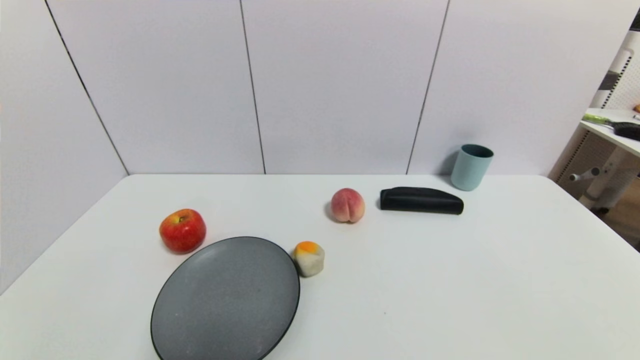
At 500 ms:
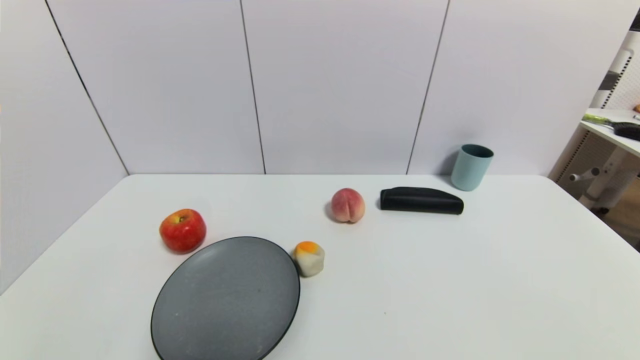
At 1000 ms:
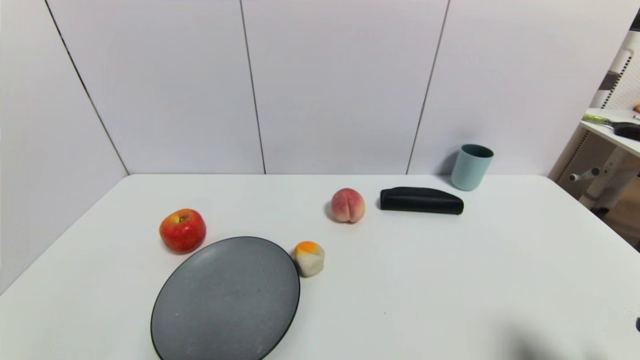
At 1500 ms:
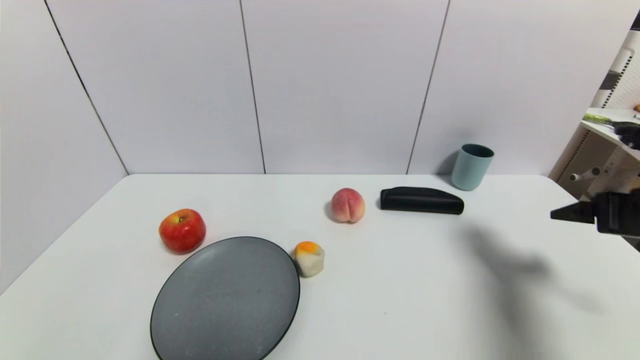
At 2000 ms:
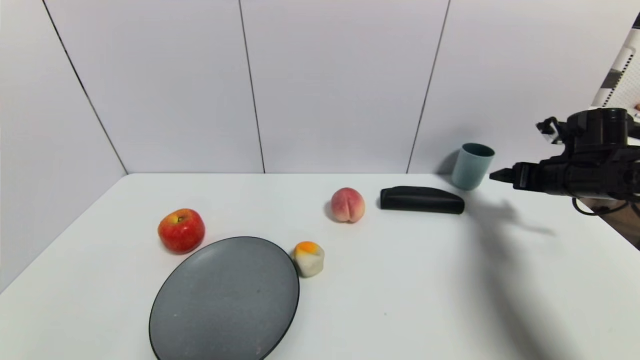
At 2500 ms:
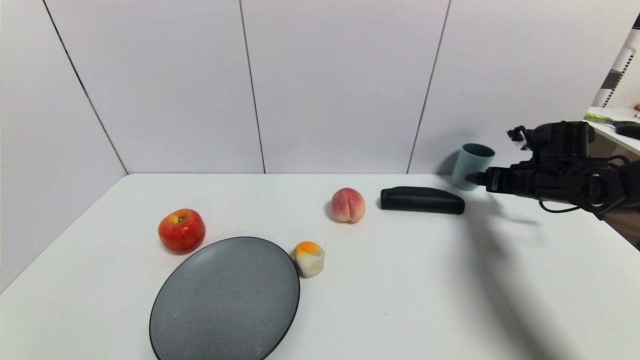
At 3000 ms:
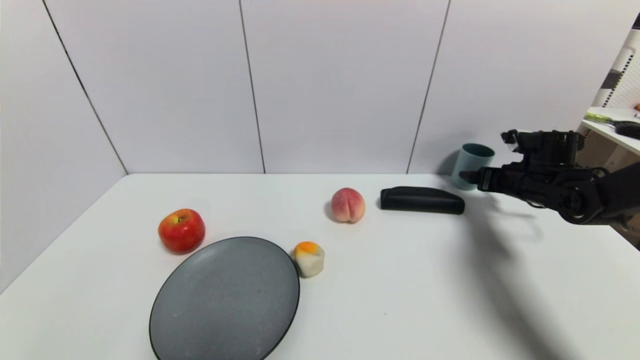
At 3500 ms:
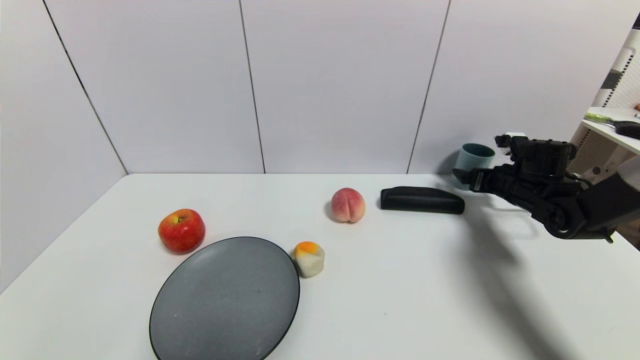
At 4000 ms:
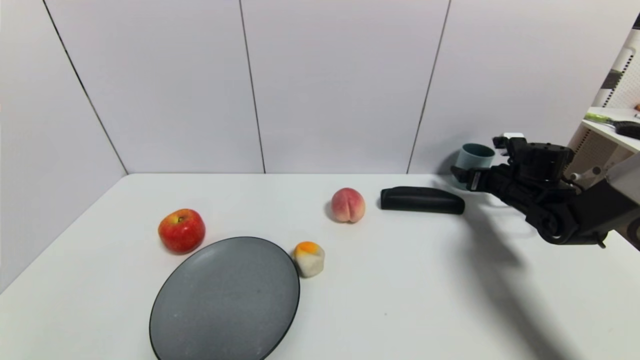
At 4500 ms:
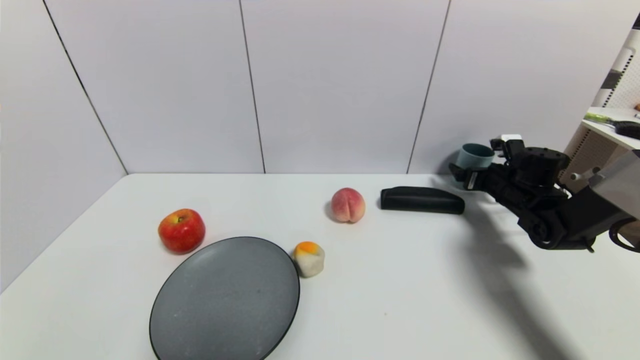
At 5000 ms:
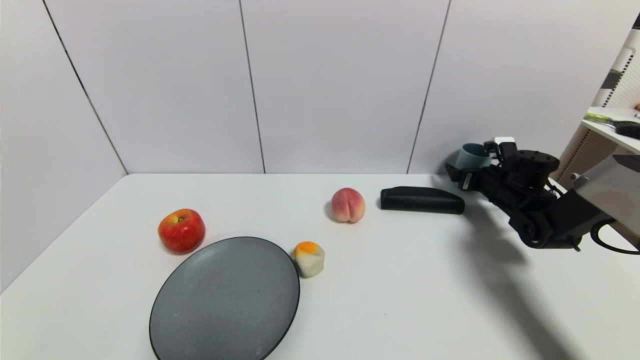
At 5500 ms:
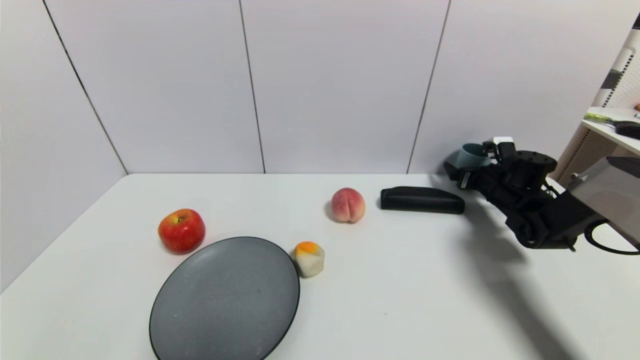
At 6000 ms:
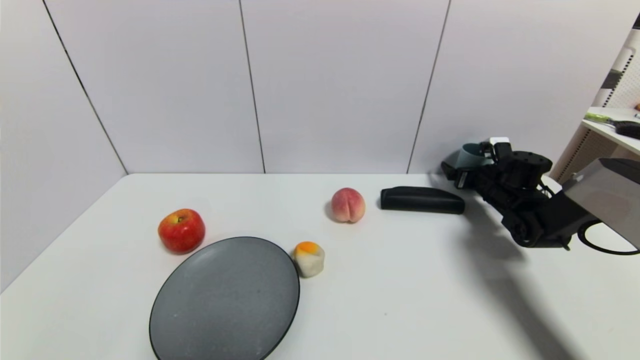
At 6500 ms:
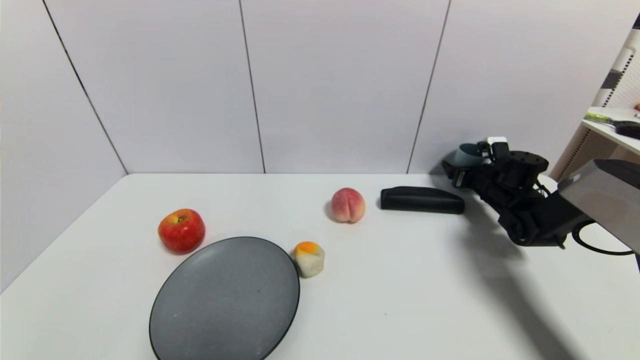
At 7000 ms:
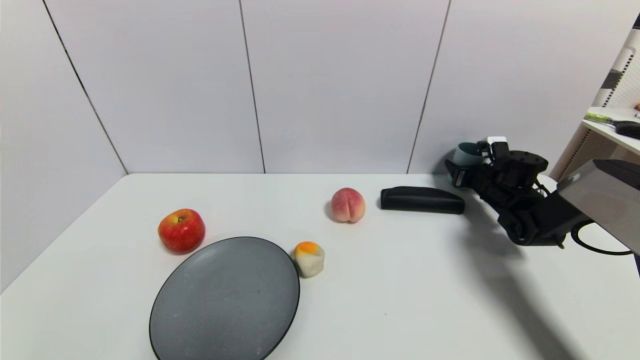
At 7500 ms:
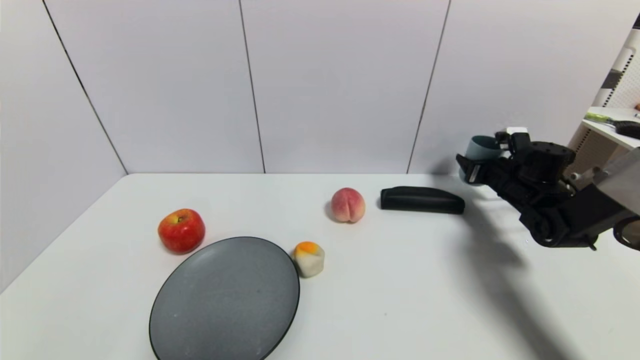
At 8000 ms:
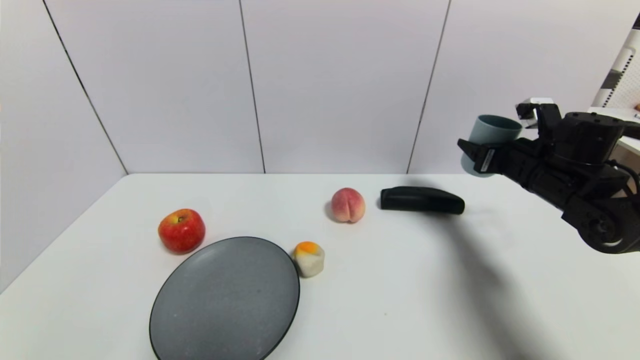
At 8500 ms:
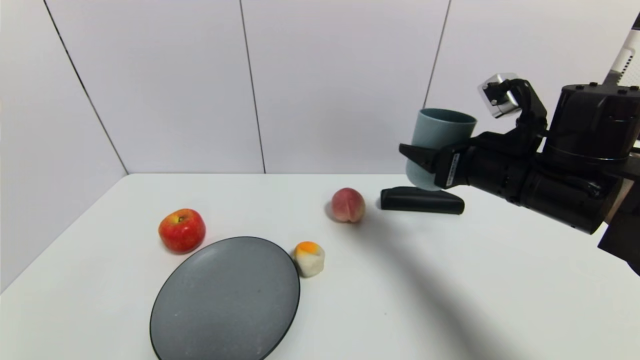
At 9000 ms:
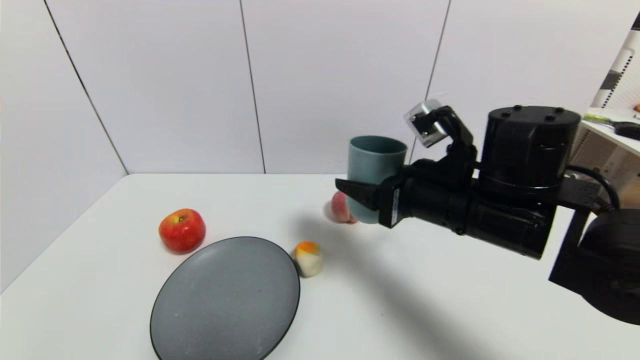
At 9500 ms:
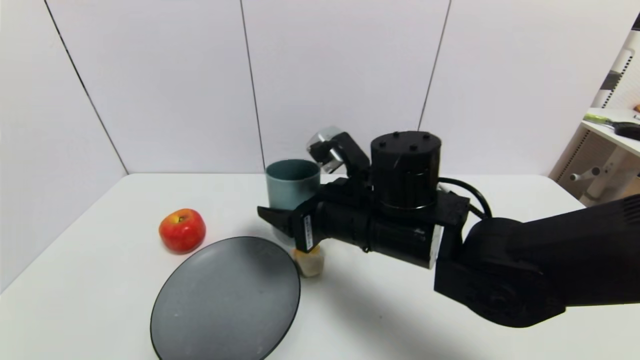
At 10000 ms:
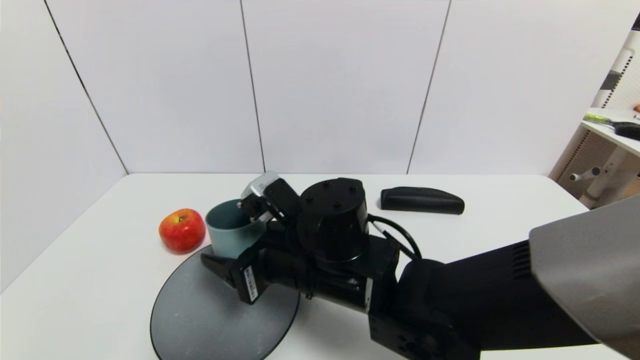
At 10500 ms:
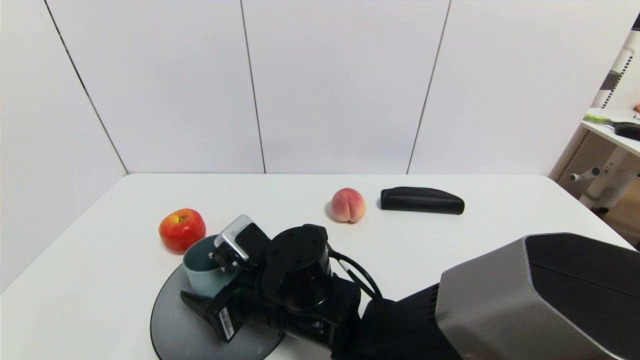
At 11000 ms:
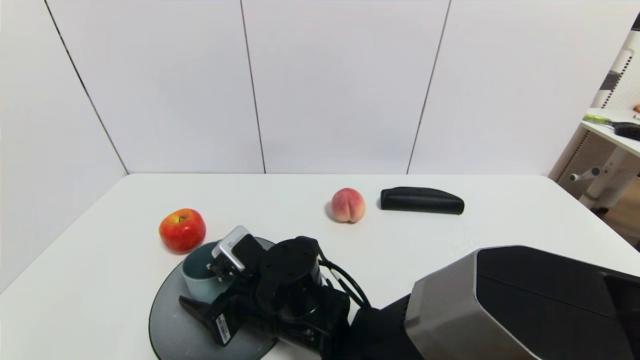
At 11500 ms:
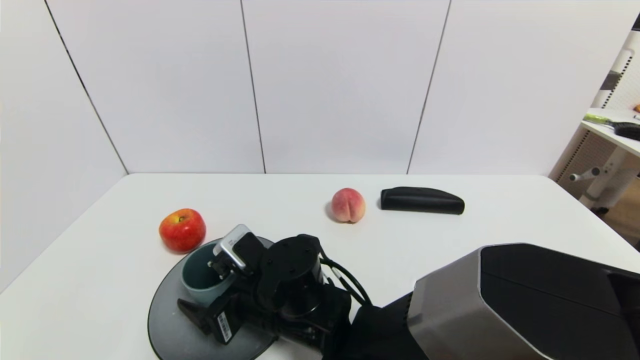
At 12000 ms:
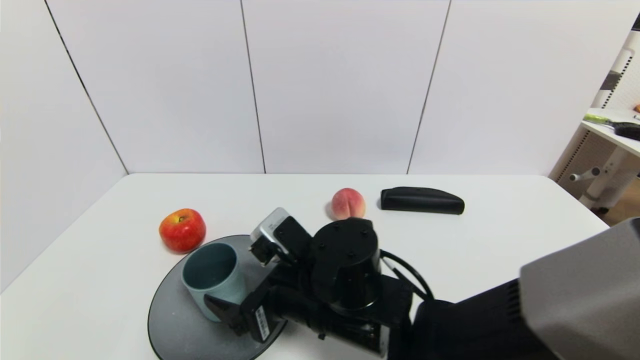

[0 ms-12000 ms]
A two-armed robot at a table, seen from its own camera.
Task of the whole recording: use a gripper to pick the target object and place on the gray plate.
Step, 0 ms to 7000 ms: Grasp the blue cup with the right gripper.
Step, 7500 ms to 12000 ms: Place the blue cup on the gray plate with the right gripper.
0 ms to 2000 ms: The right gripper is displaced forward by some 40 cm.
2000 ms to 4000 ms: The right gripper heads downward and forward, covering roughly 10 cm.
4000 ms to 6000 ms: There are only small adjustments of the grippers.
6000 ms to 8000 ms: The right gripper heads backward and upward, covering approximately 15 cm, and closes.
8000 ms to 10000 ms: The right gripper goes about 30 cm to the left.
10000 ms to 12000 ms: The right gripper opens up.

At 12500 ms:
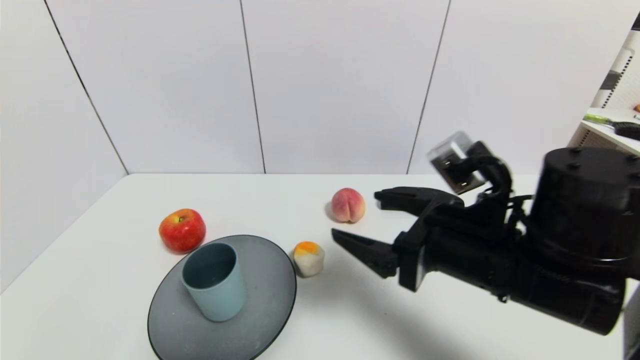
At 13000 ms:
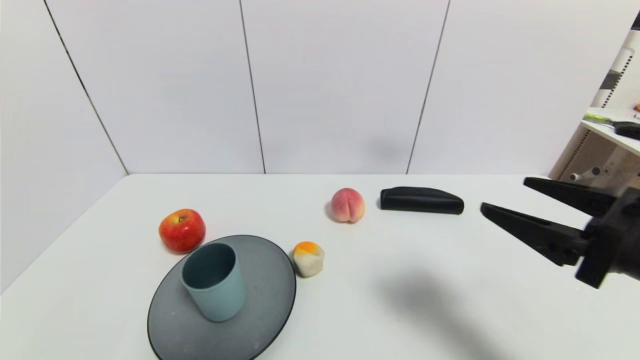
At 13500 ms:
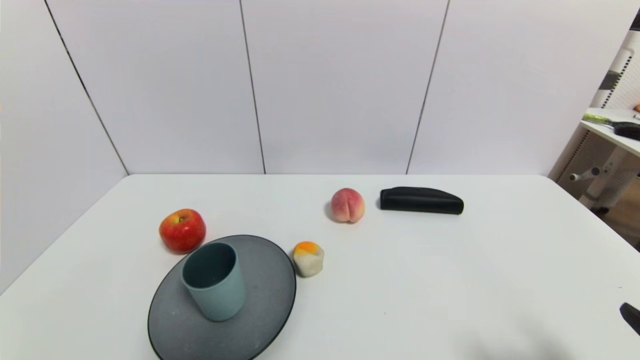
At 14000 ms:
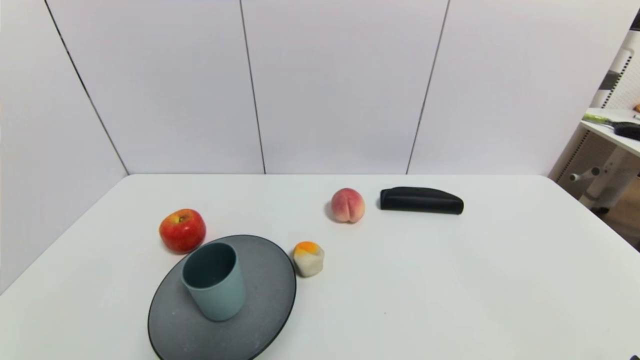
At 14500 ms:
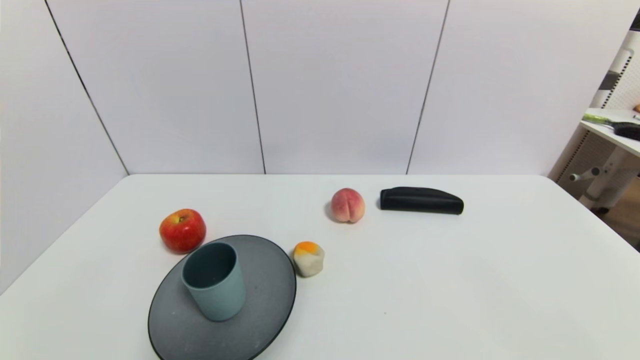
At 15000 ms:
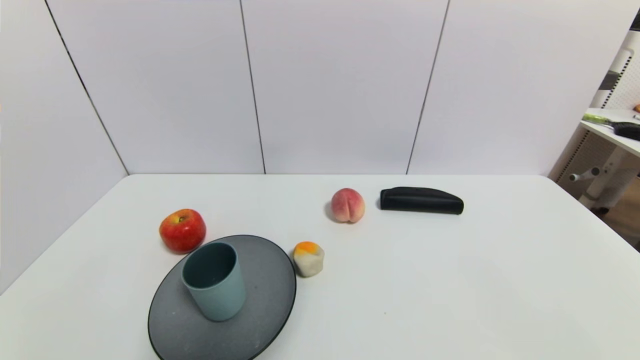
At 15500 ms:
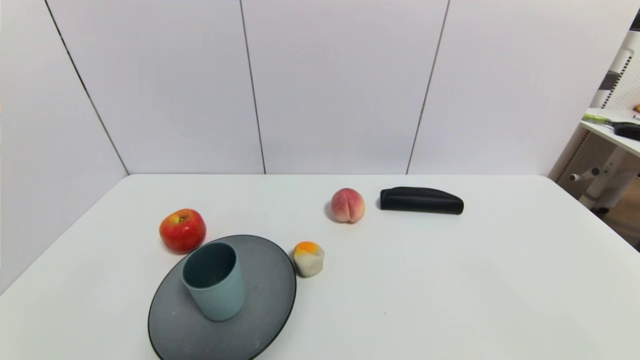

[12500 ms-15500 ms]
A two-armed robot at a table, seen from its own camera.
Task of the whole recording: use a gripper to pick the target object and place on the gray plate.
12500 ms to 14000 ms: The right gripper travels backward, to the right and downward by about 30 cm.
